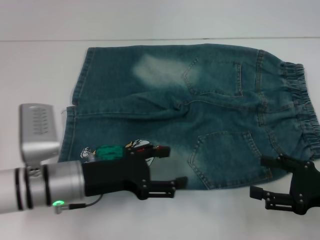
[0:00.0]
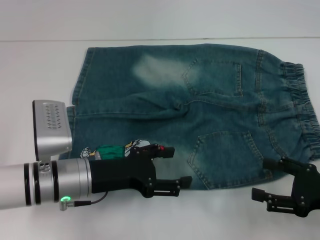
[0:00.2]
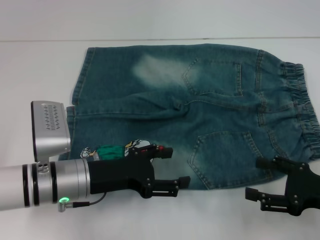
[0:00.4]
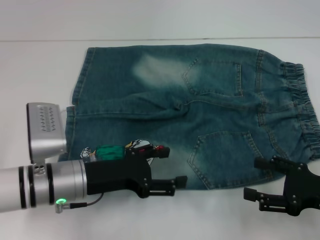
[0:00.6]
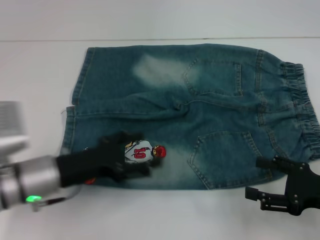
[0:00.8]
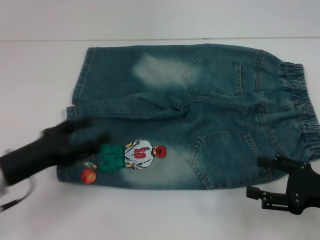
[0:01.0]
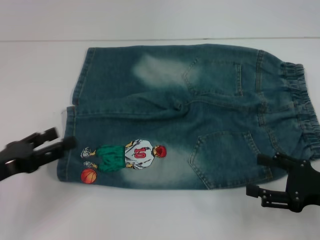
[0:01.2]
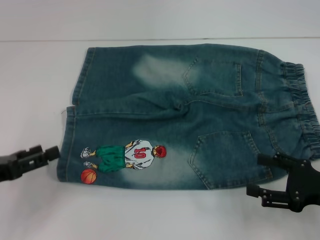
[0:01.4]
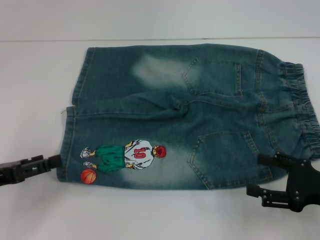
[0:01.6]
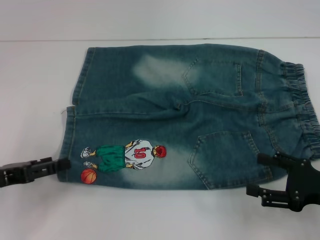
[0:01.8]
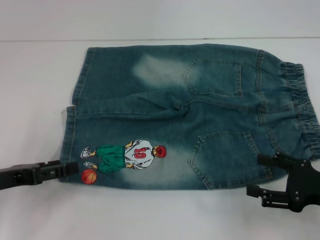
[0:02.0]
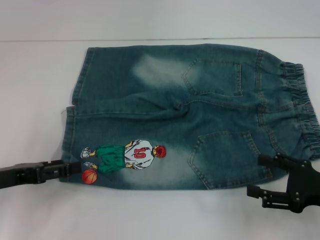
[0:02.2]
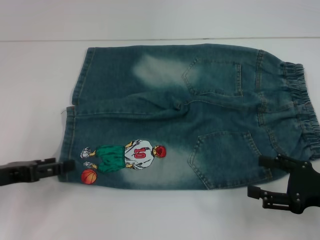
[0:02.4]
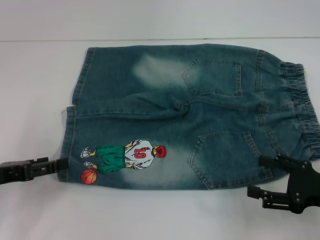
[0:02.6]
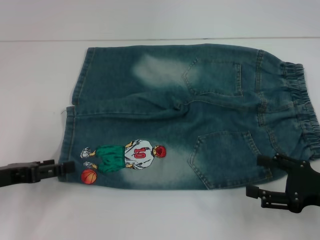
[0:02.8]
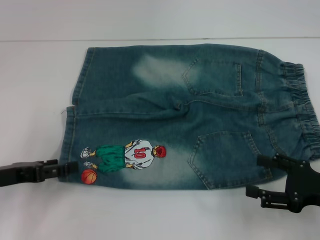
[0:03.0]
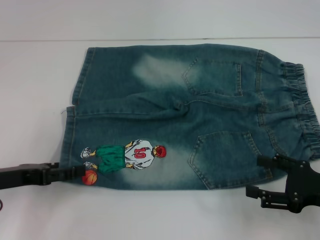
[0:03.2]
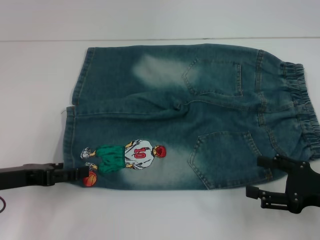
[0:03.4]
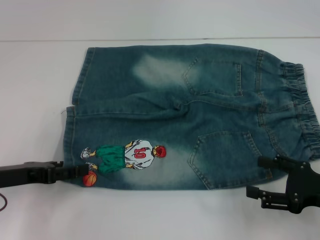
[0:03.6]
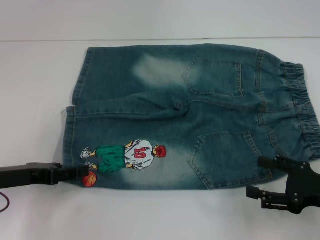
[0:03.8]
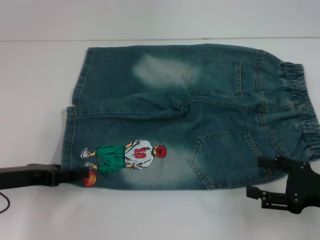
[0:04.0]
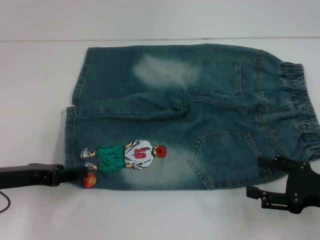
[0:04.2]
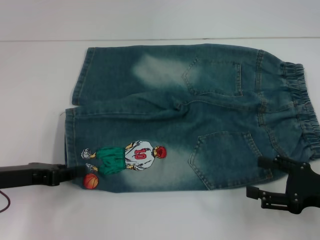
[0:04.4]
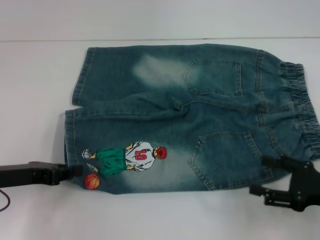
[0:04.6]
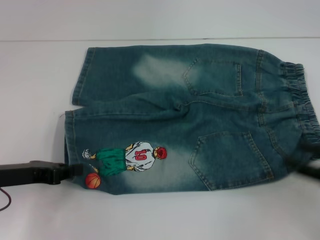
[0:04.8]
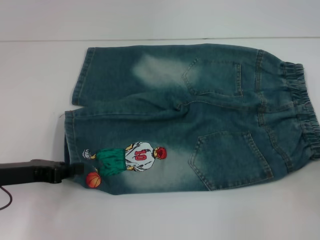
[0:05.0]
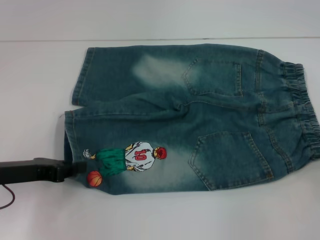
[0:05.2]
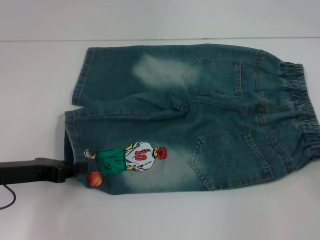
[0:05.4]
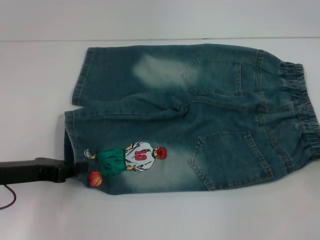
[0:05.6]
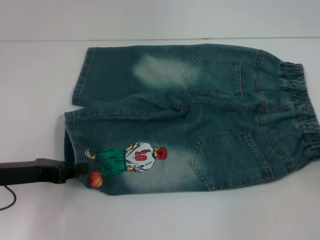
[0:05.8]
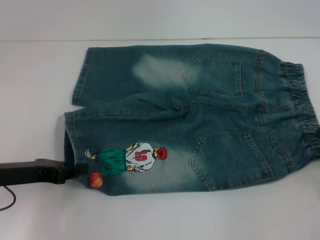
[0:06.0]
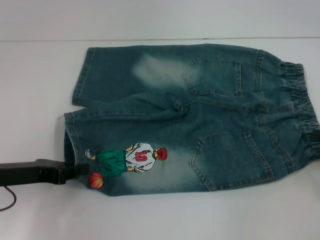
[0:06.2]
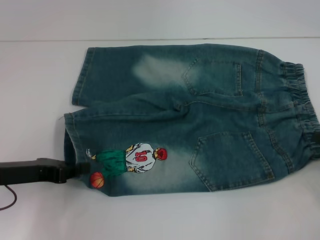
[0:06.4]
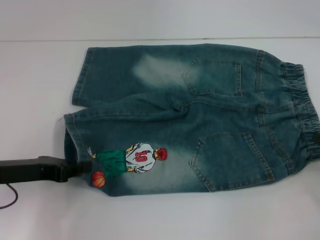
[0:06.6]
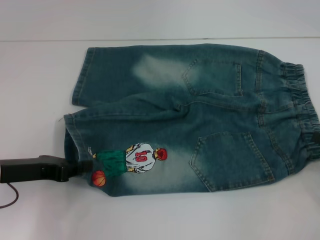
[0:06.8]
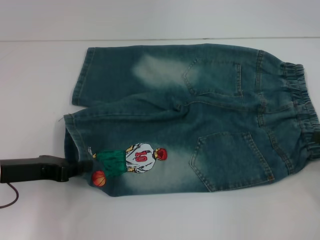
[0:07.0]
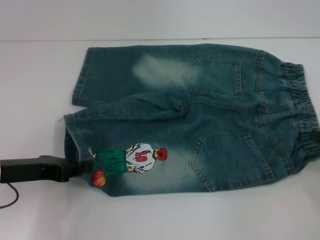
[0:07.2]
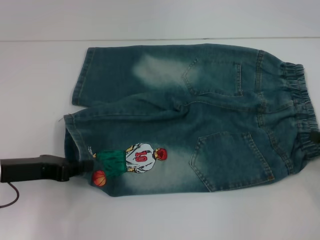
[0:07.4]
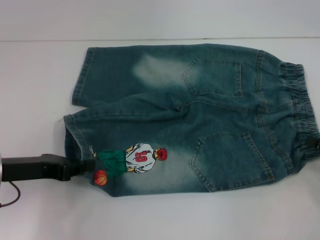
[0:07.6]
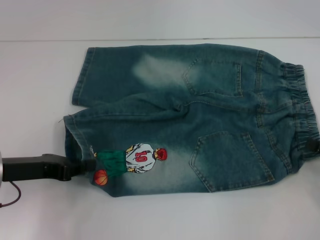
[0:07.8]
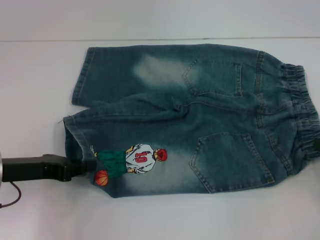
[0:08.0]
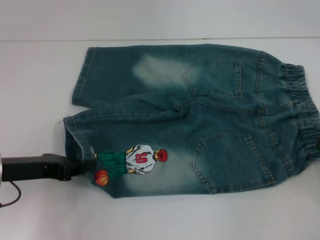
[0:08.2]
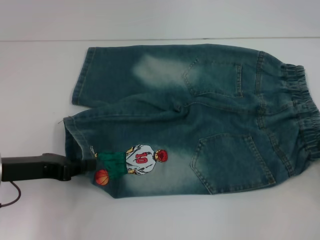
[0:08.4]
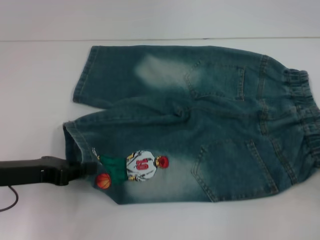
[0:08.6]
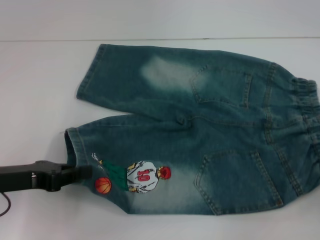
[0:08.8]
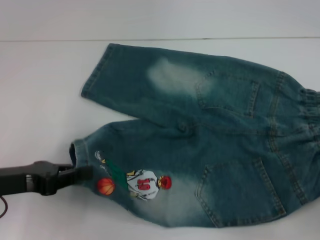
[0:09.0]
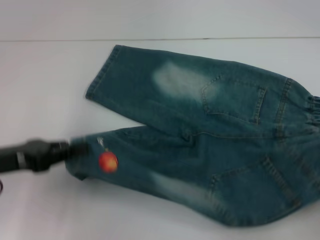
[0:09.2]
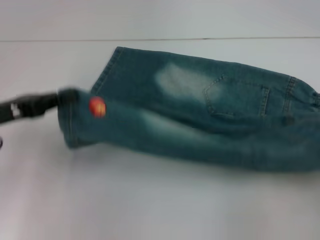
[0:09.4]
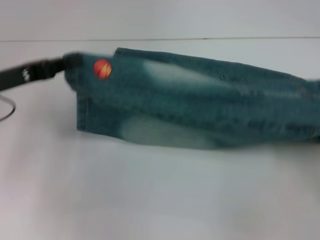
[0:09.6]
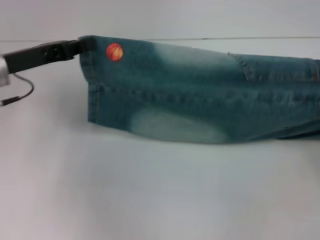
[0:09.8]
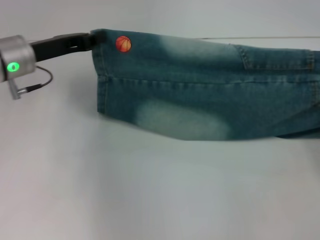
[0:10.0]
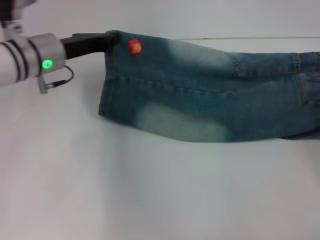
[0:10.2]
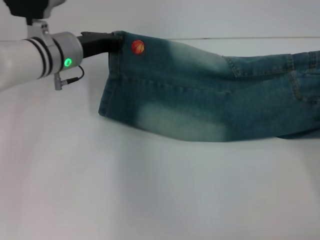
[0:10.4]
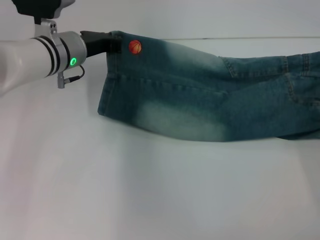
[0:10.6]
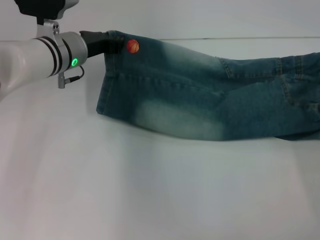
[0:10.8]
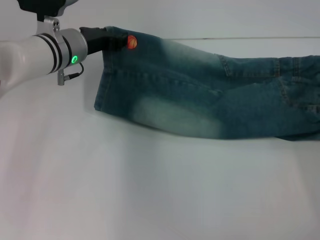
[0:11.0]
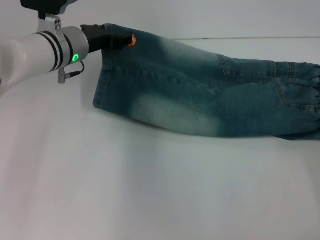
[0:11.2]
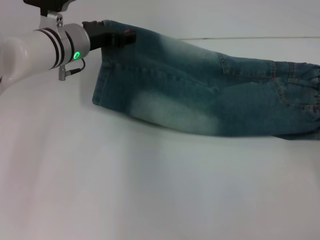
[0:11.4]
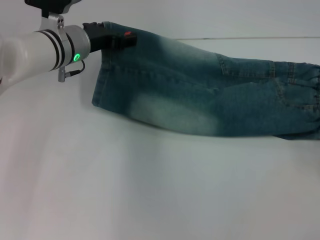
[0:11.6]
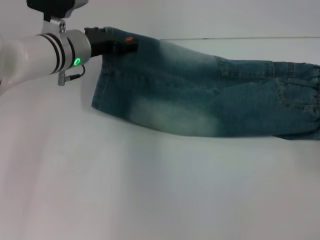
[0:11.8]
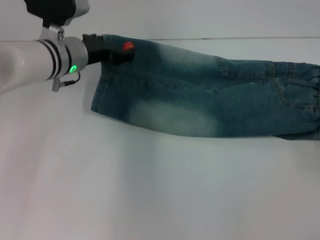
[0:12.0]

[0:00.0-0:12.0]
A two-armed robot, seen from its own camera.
Step, 0:00.0 to 0:05.0: Grab the lower left pant leg with your left hand.
Step, 0:05.2 to 0:08.2: Hold the lower right waistband with your right hand.
0:00.0 to 0:01.6: The left gripper moves to the left, some 15 cm.
0:01.6 to 0:03.0: There are only small adjustments of the grippers.
0:03.0 to 0:04.4: The left gripper closes up.
0:04.4 to 0:06.0: The left gripper closes its fingers, while the right gripper heads to the right, covering approximately 10 cm.
0:06.0 to 0:07.6: The grippers make only small movements.
0:07.6 to 0:09.0: The right gripper heads backward, covering roughly 5 cm, and closes its fingers.
0:09.0 to 0:10.4: The left gripper goes roughly 25 cm forward and to the right. The right gripper shifts approximately 15 cm forward.
0:10.4 to 0:12.0: The left gripper opens, while the right gripper opens its fingers.

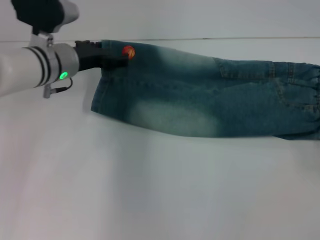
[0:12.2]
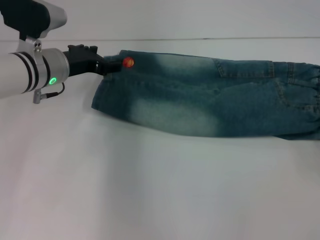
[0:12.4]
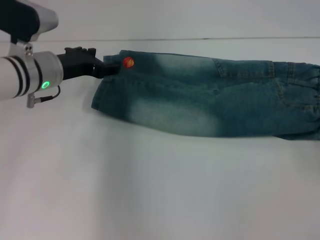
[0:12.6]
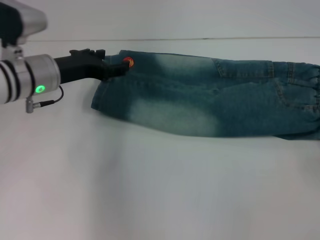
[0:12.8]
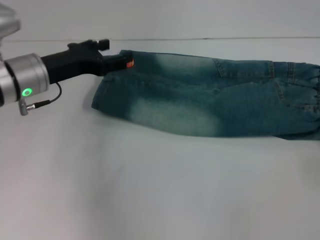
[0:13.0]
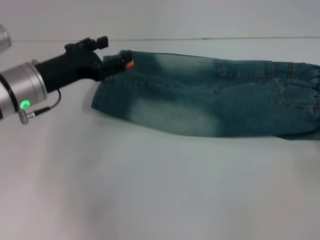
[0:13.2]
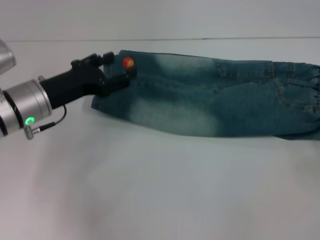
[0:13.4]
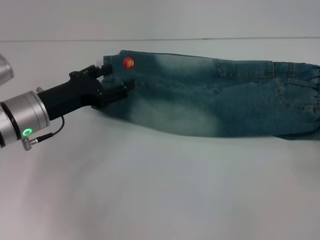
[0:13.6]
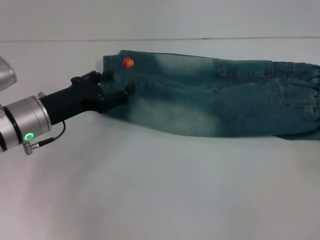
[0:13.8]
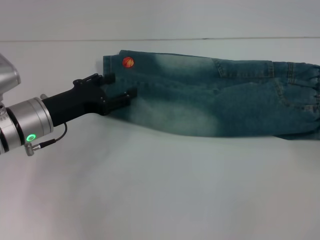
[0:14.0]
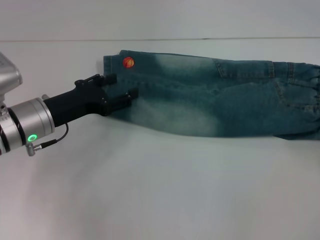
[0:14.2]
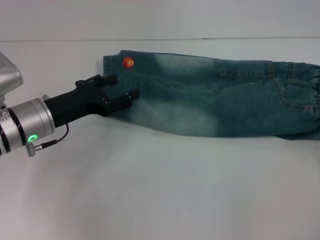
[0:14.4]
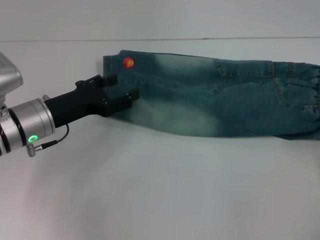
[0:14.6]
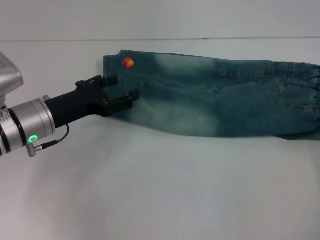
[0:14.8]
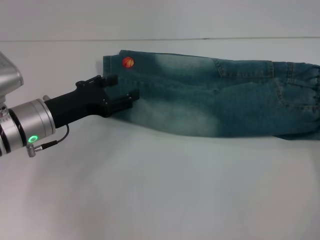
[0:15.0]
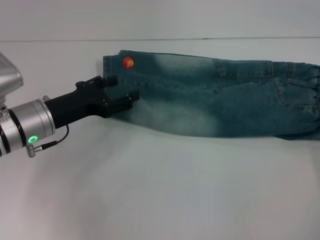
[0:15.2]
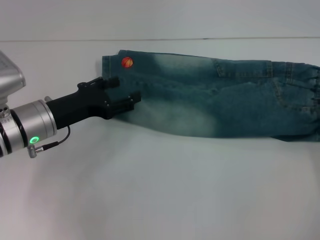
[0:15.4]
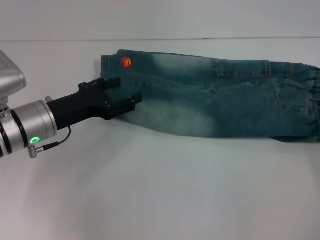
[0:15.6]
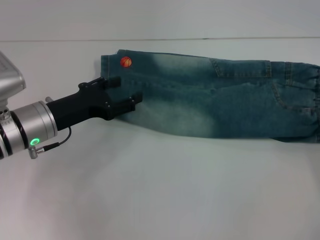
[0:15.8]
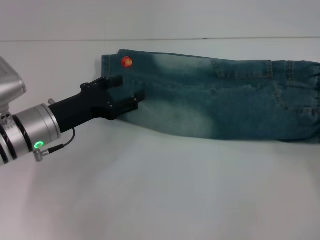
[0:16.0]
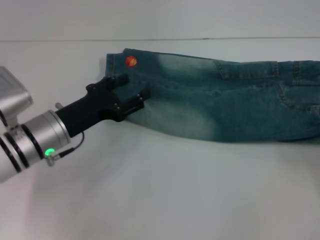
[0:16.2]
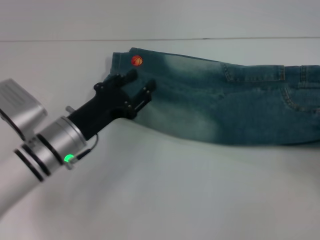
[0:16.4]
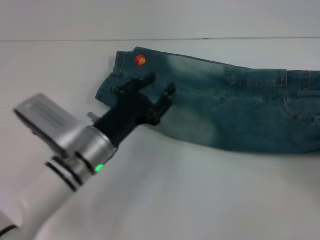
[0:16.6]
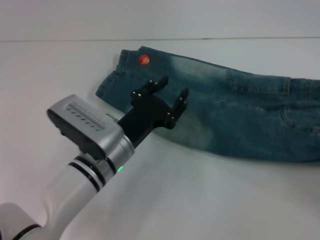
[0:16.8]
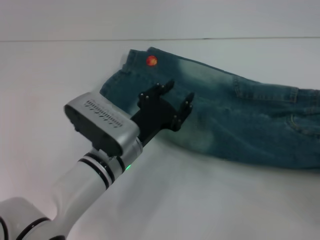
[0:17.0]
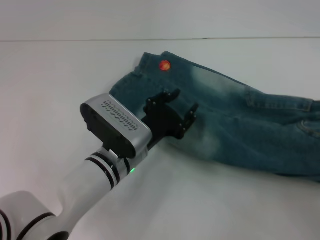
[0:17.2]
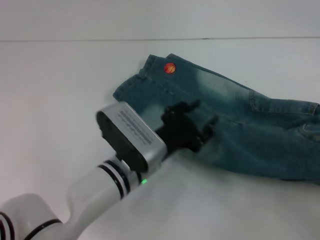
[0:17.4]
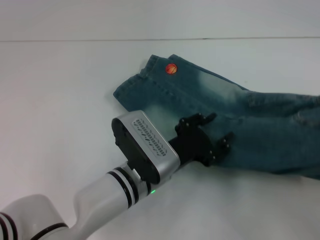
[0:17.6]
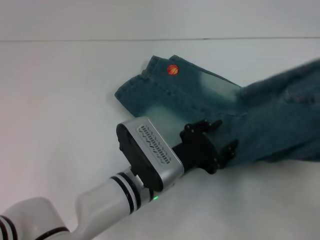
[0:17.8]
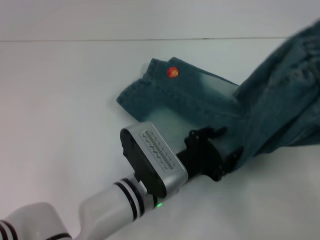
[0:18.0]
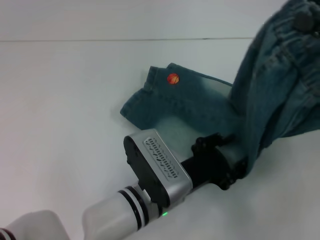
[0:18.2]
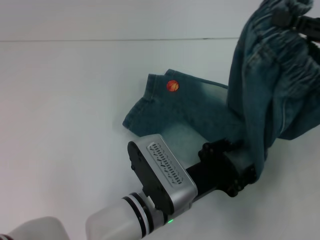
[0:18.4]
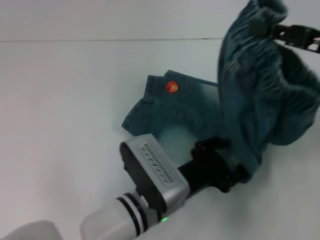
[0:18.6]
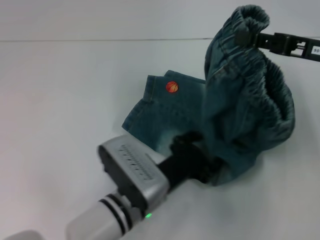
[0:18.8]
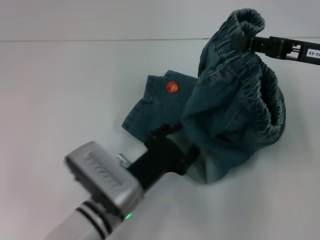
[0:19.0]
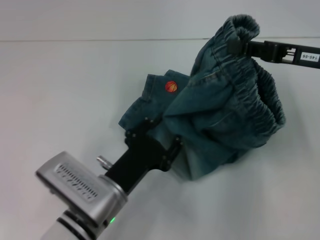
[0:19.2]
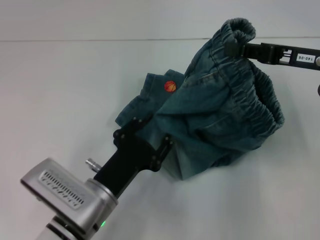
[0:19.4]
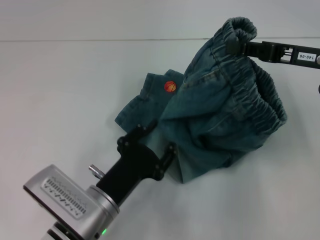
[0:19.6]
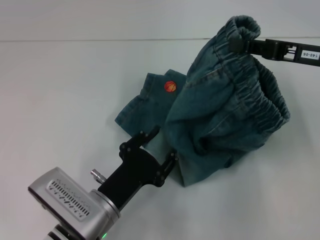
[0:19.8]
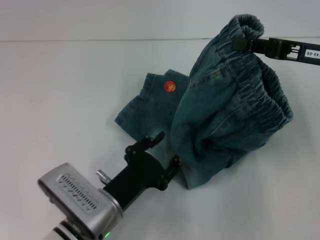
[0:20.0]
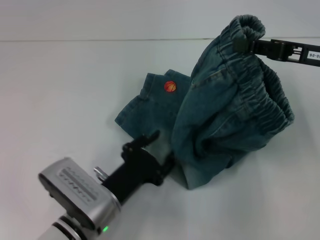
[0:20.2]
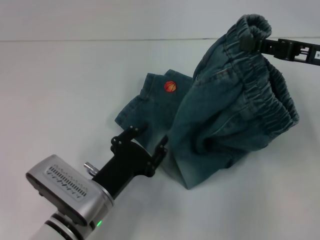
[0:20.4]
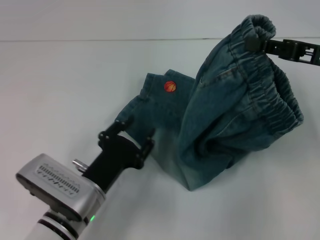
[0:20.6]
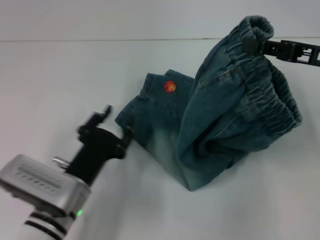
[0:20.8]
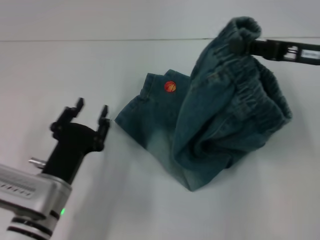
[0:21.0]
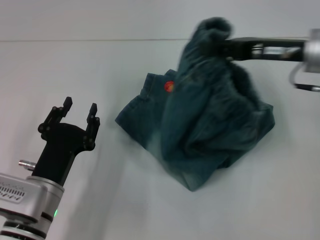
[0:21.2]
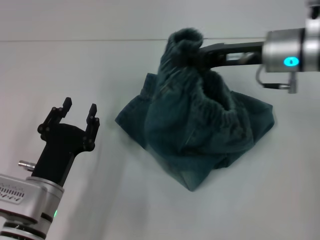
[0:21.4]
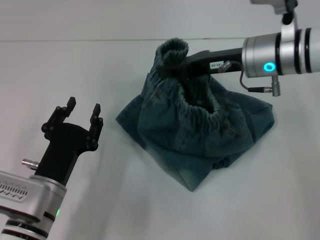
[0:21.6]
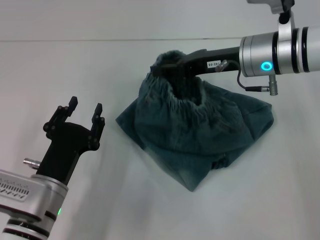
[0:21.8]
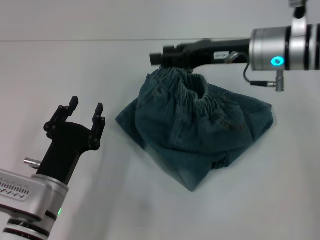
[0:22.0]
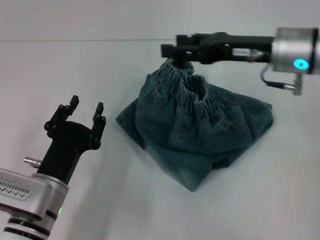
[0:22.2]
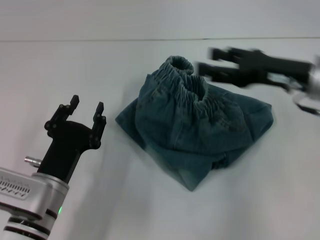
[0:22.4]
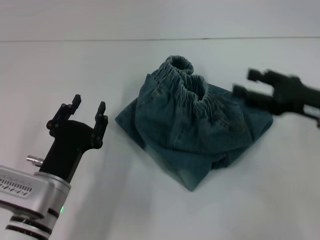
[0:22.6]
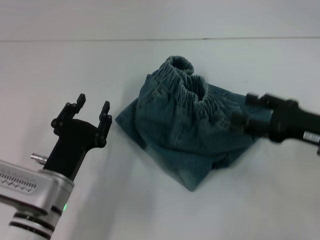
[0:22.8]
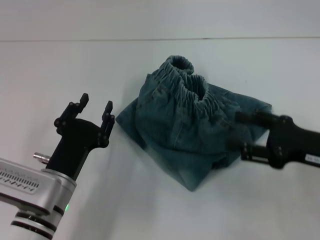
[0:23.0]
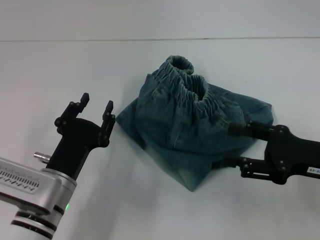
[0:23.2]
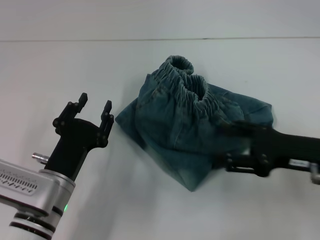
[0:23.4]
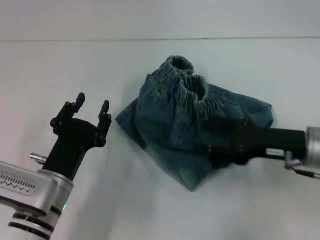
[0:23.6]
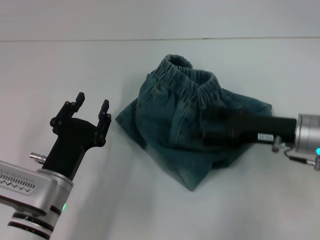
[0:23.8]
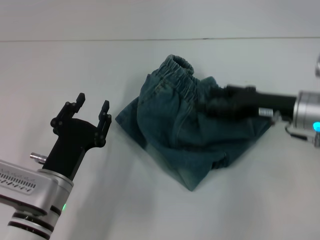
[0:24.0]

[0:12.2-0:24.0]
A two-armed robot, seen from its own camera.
Step, 0:12.6 to 0:15.8: Grab the waistband with your right hand.
Step, 0:16.2 to 0:19.2: Press the middle of the pants with your left hand.
Step, 0:19.6 to 0:22.2: Fold to the left with your right hand.
0:12.2 to 0:13.6: The left gripper moves backward, about 10 cm.
0:13.6 to 0:15.2: There are only small adjustments of the grippers.
0:15.2 to 0:16.6: The right gripper heads backward, covering about 5 cm, and closes its fingers. Meanwhile the left gripper goes approximately 10 cm to the right.
0:16.6 to 0:18.2: The right gripper goes approximately 15 cm upward, forward and to the left. Meanwhile the left gripper moves to the right, approximately 10 cm.
0:18.2 to 0:19.6: Both grippers move to the left, about 5 cm.
0:19.6 to 0:21.0: The left gripper heads to the left, covering approximately 5 cm.
0:21.0 to 0:22.6: The right gripper goes about 10 cm downward and backward, travels to the left and back again, about 10 cm each way, and opens up.
0:22.6 to 0:24.0: The right gripper shifts by some 5 cm.
